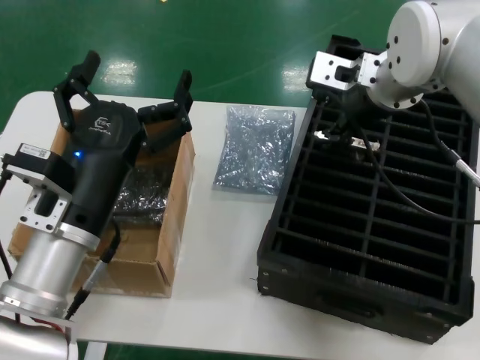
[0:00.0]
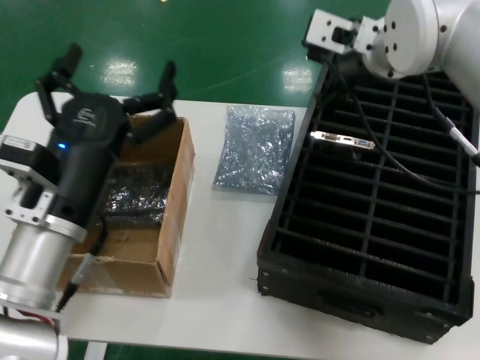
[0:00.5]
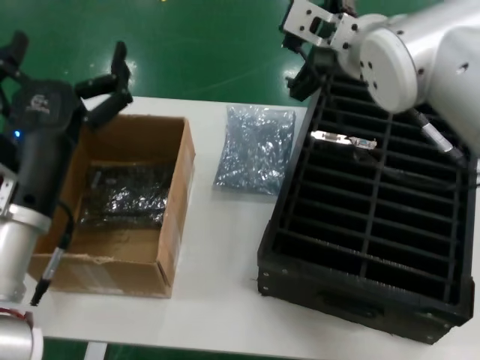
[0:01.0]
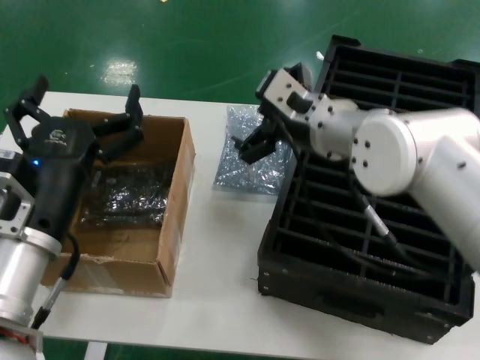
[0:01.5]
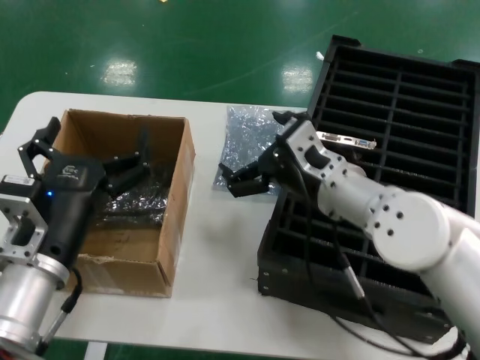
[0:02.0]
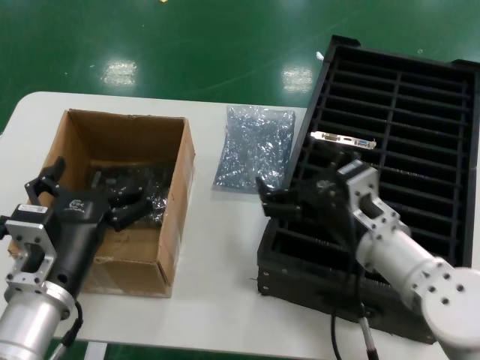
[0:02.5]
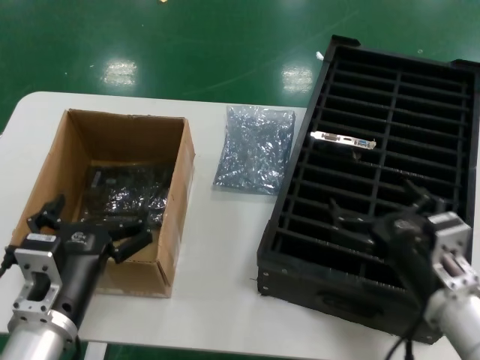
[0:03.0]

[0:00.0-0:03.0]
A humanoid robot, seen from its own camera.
Task of the whole recording: take out graphics card from box remove packaging put into black container.
Step, 0:00.0 to 0:02.0: Place the hard disk in the hard disk enclosure.
0:00.0 to 0:01.5: The right hand goes roughly 10 cm downward.
0:01.5 to 0:03.0: The left hand moves downward, roughly 5 cm; the right hand moves downward, backward and to the right, some 25 cm.
